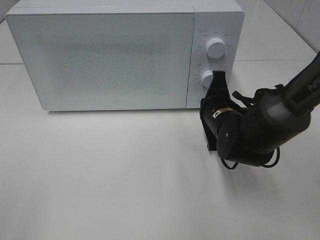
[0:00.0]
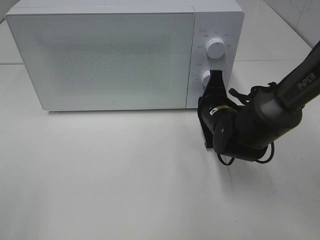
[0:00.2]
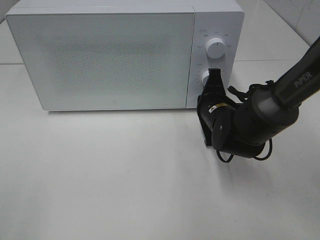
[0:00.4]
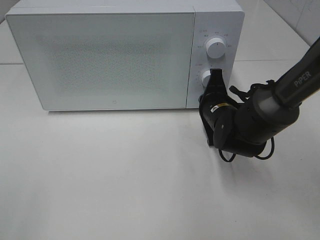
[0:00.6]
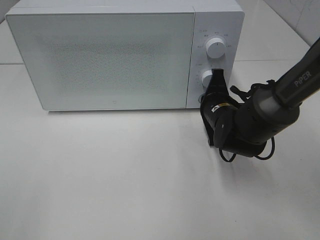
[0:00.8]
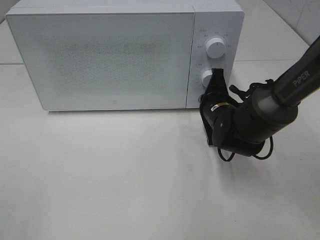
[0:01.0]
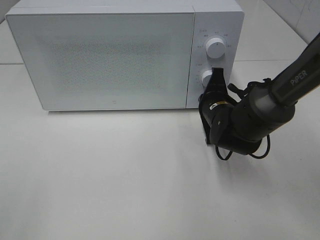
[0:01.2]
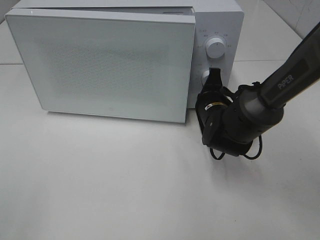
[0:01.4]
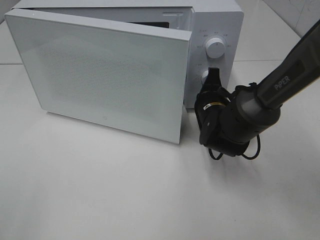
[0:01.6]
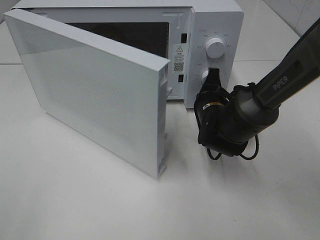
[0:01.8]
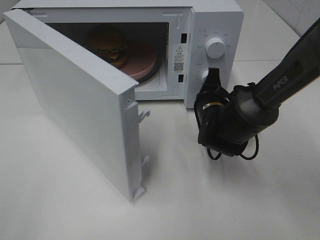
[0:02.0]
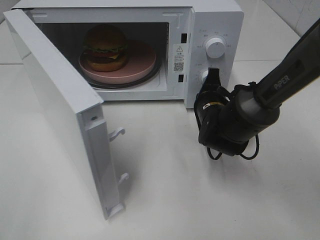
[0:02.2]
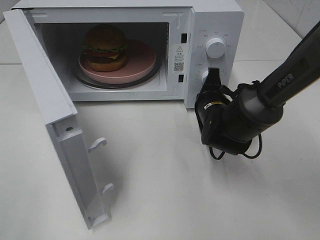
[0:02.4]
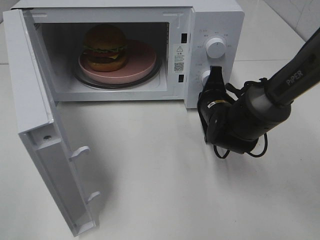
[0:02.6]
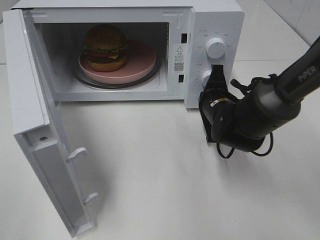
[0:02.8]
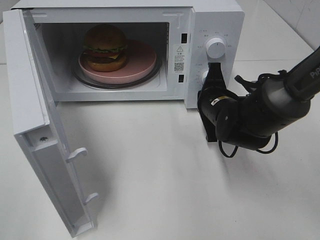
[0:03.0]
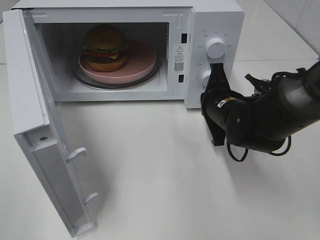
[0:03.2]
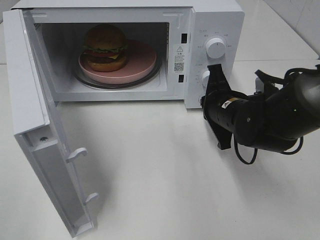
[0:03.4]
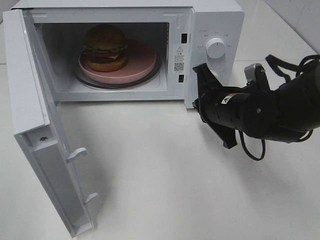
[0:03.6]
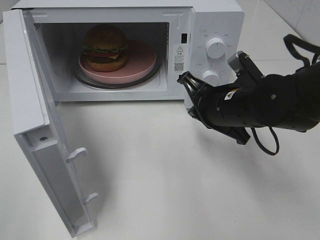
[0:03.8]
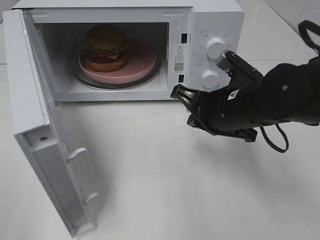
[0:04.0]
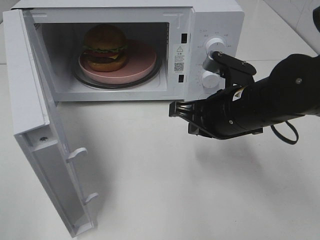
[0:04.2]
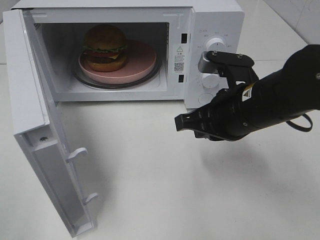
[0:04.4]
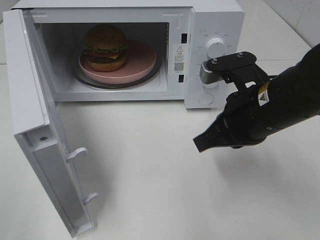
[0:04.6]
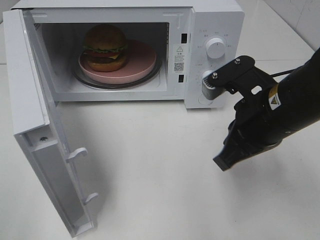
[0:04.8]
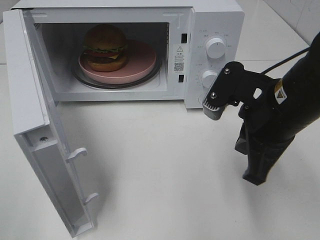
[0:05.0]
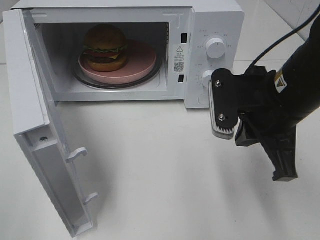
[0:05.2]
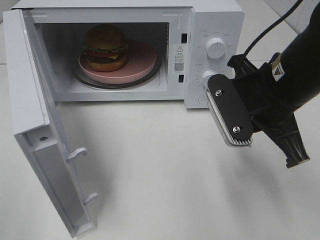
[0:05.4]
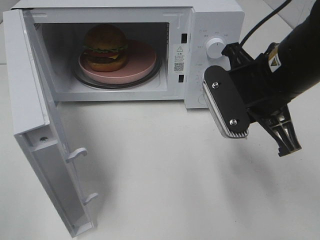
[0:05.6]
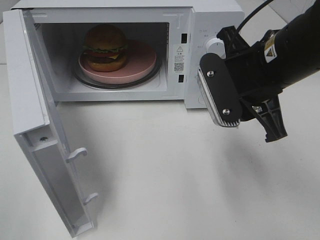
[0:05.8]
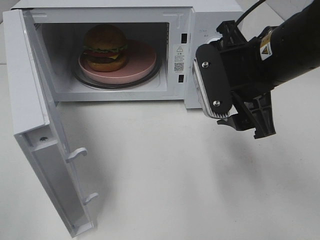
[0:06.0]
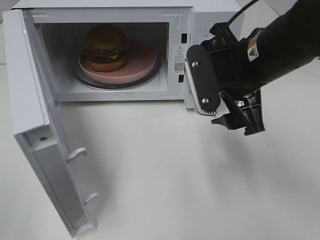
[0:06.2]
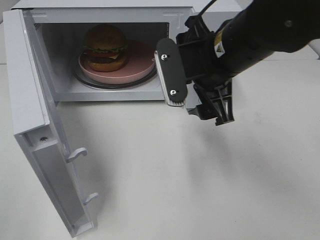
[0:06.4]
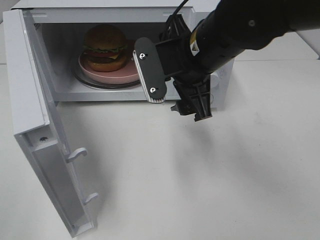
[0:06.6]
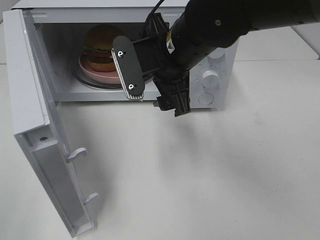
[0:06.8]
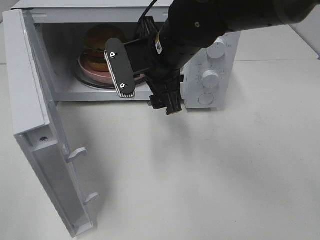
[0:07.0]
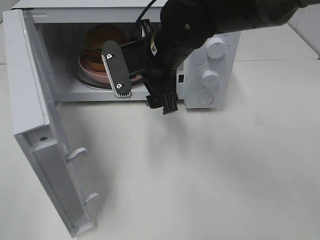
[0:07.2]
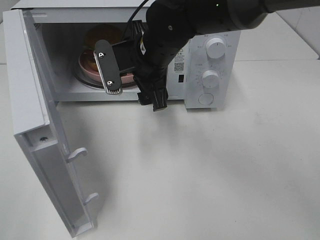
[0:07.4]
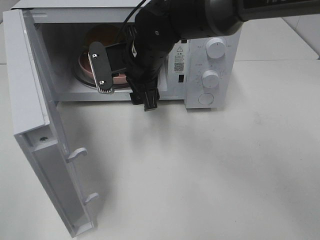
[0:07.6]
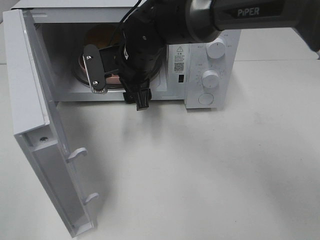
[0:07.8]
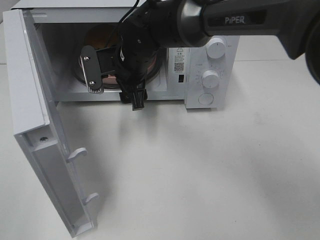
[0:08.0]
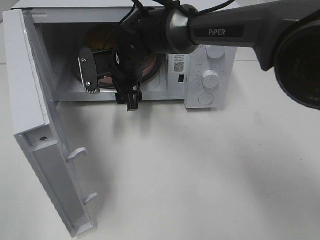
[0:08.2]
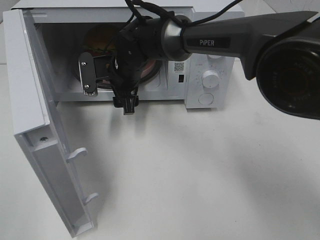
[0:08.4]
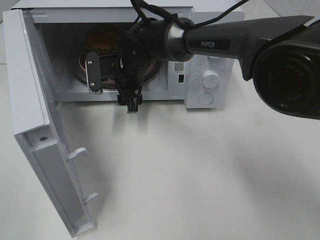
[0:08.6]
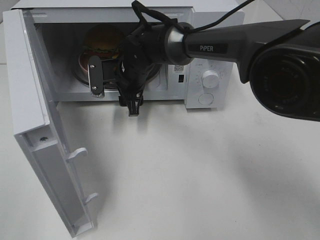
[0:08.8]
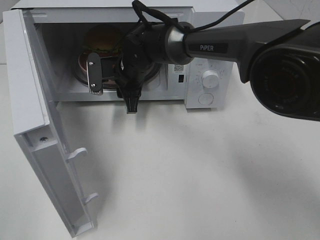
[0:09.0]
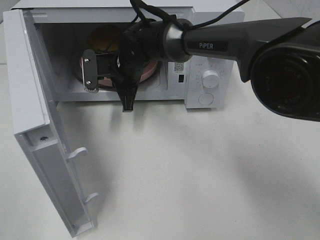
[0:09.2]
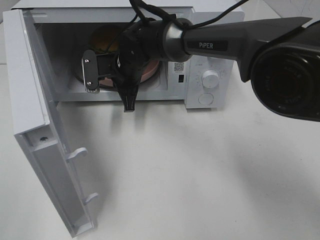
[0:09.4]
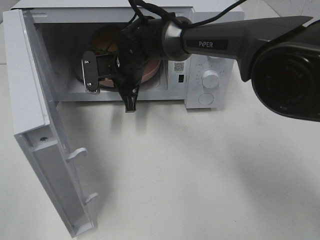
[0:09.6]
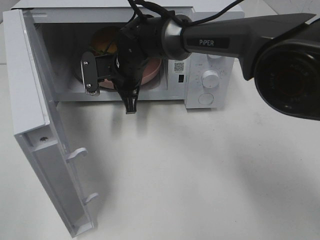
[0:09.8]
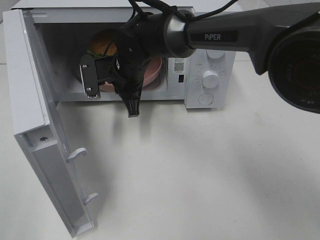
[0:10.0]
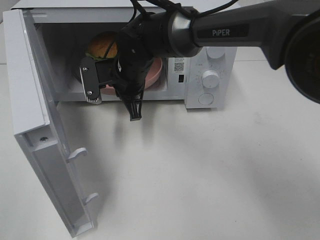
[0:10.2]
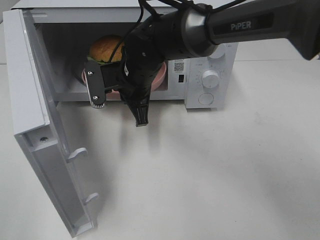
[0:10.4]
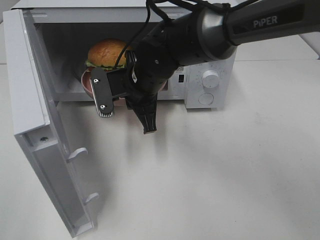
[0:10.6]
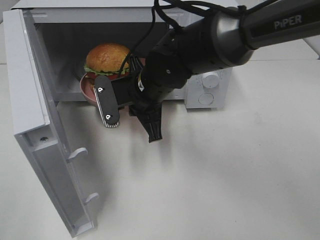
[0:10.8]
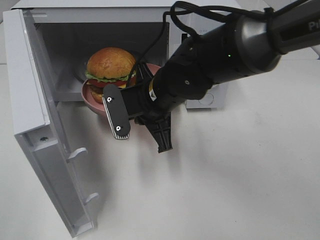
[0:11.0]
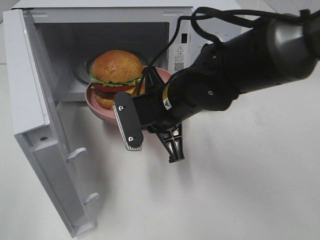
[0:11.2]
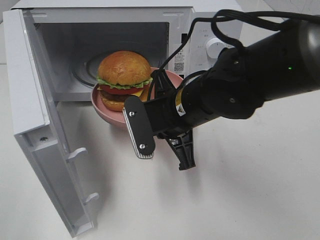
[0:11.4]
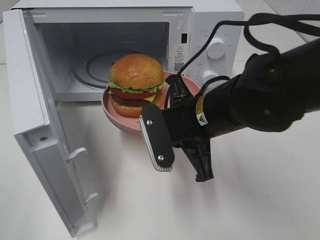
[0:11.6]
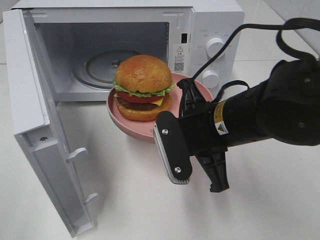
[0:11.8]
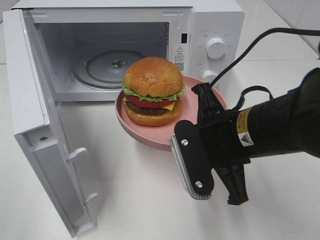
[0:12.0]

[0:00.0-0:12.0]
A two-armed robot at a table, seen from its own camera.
Task of the whole recording: Heat the burger.
Step, 0:00.0 to 0:03.0: Right hand: press the switch.
Step, 0:03.2 to 0:09.4: Right hand: grab the plate with the hamburger.
0:00.0 to 0:01.6: There are only small adjustments of the grippers.
0:03.0 to 0:04.4: The right gripper heads backward and upward, covering about 15 cm.
0:04.4 to 0:06.0: The right gripper travels upward by roughly 5 cm, and opens its fingers.
0:06.0 to 0:07.6: The right gripper travels to the left and forward by roughly 20 cm.
0:07.6 to 0:09.0: The right gripper heads downward and forward, covering some 10 cm, and closes.
0:09.0 to 0:10.4: The right gripper heads backward, covering about 5 cm, and closes its fingers.
0:10.4 to 0:12.0: The right gripper moves backward and to the right, some 20 cm.

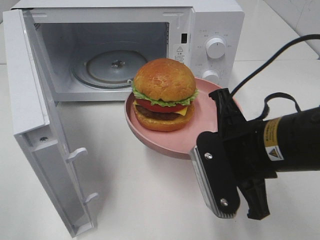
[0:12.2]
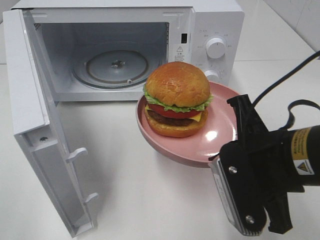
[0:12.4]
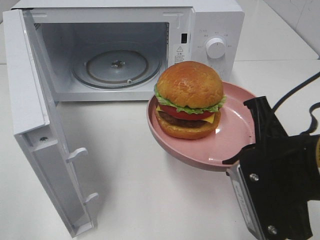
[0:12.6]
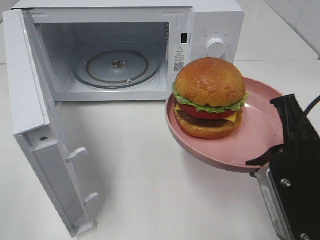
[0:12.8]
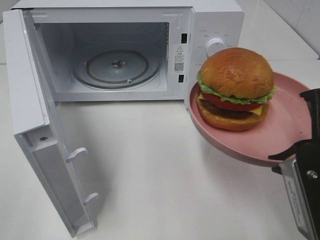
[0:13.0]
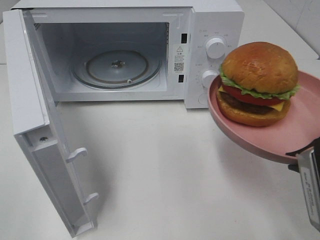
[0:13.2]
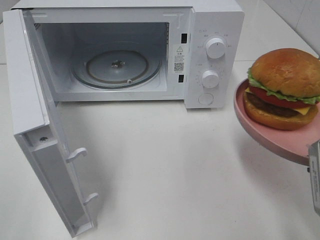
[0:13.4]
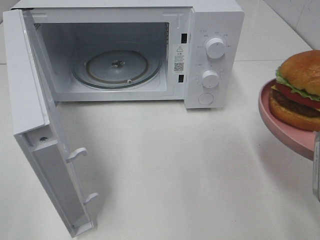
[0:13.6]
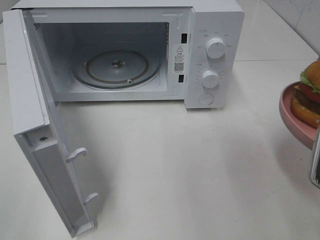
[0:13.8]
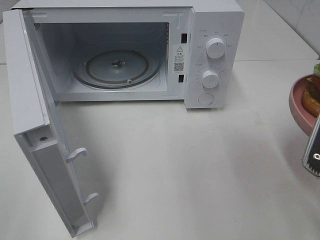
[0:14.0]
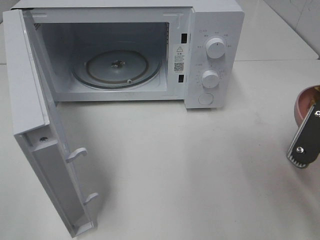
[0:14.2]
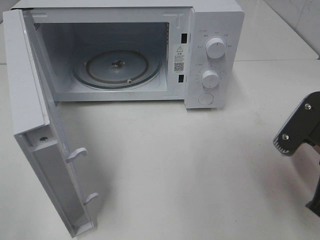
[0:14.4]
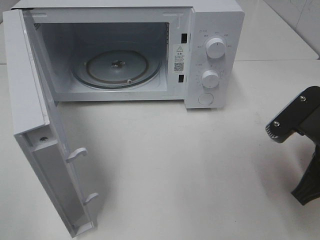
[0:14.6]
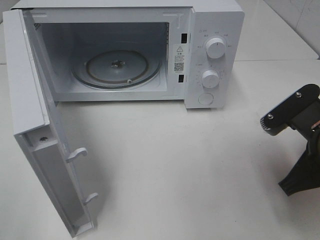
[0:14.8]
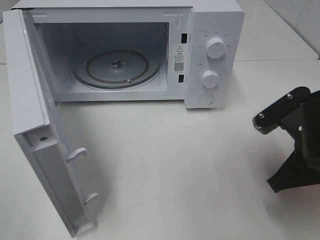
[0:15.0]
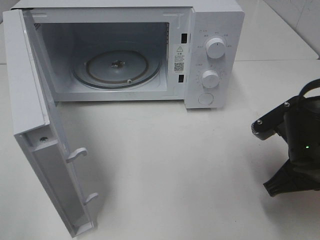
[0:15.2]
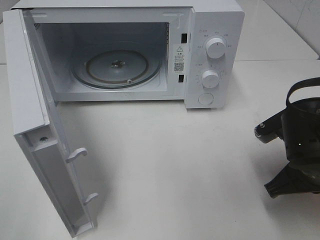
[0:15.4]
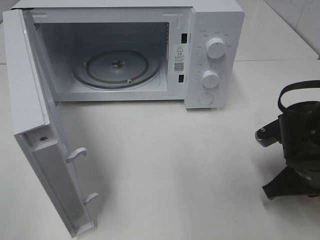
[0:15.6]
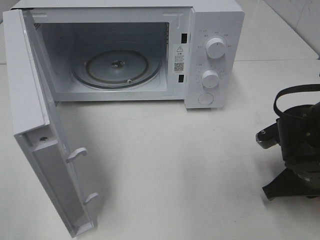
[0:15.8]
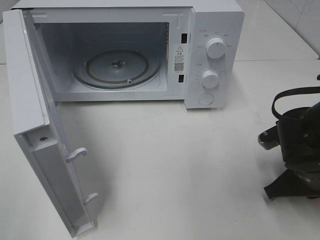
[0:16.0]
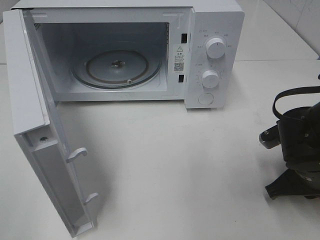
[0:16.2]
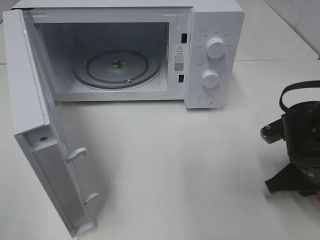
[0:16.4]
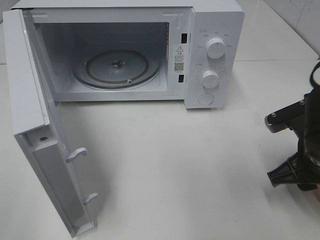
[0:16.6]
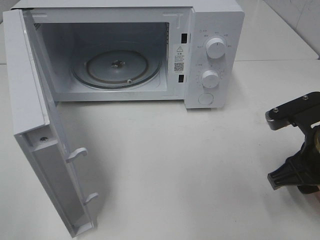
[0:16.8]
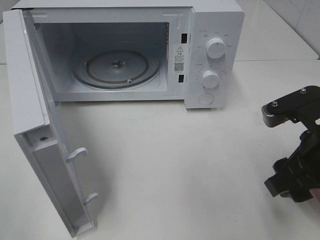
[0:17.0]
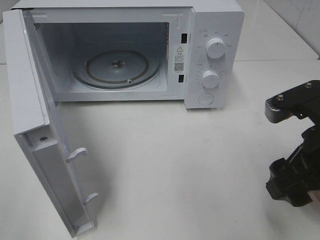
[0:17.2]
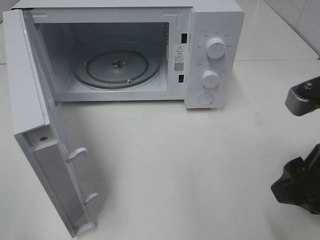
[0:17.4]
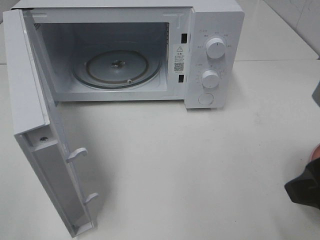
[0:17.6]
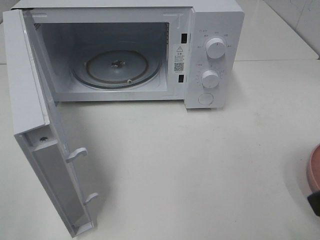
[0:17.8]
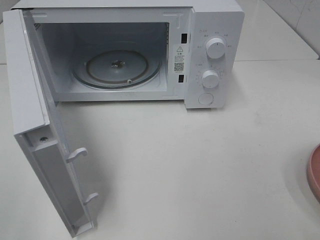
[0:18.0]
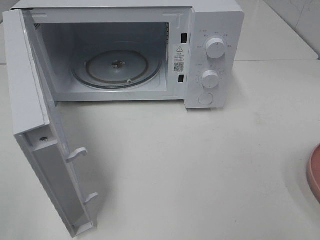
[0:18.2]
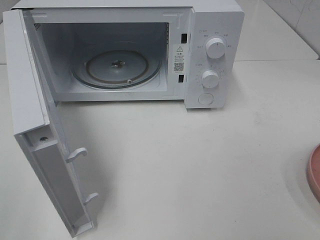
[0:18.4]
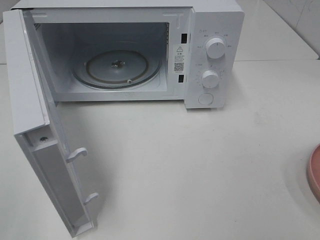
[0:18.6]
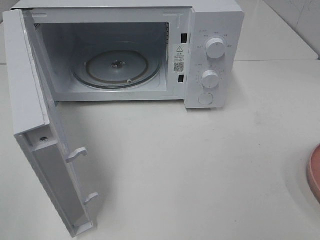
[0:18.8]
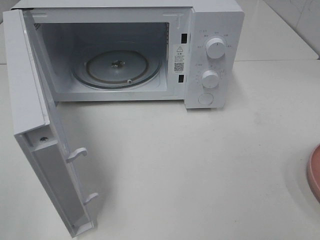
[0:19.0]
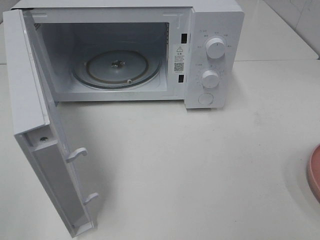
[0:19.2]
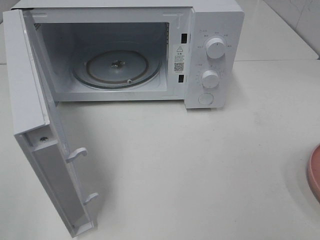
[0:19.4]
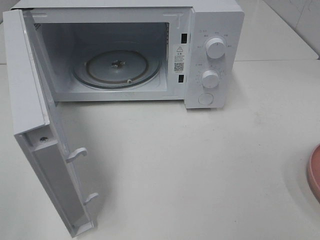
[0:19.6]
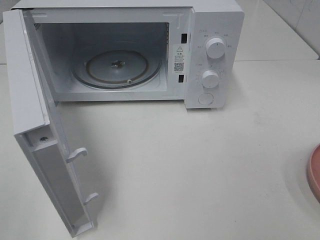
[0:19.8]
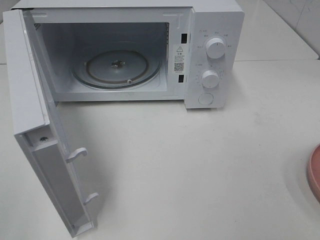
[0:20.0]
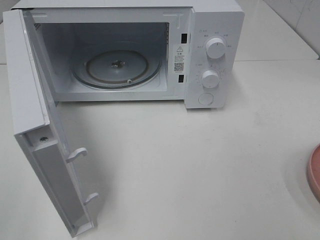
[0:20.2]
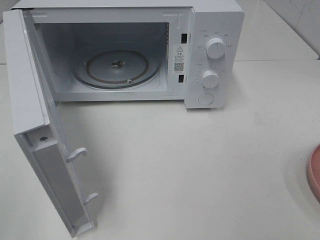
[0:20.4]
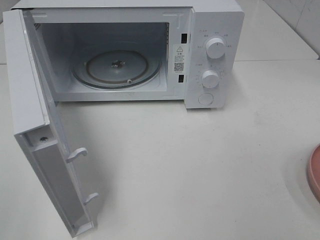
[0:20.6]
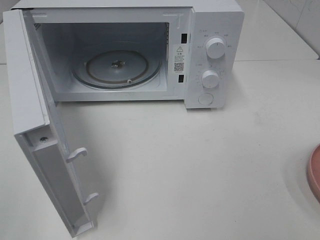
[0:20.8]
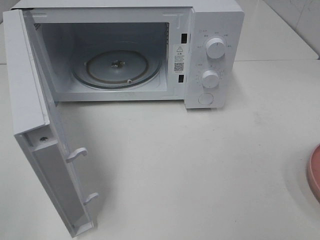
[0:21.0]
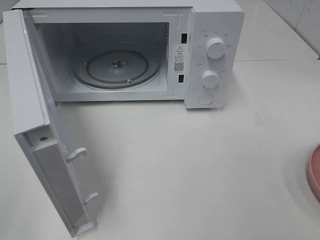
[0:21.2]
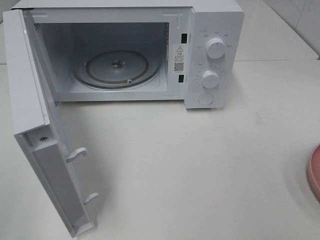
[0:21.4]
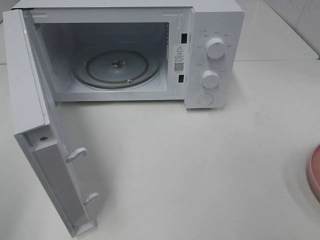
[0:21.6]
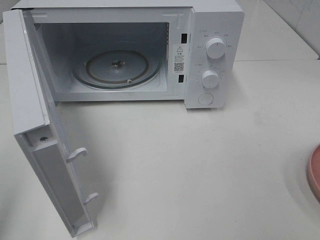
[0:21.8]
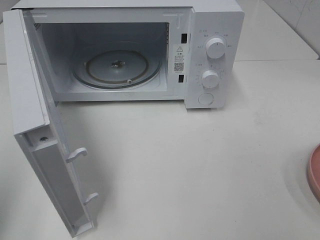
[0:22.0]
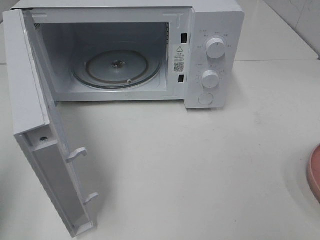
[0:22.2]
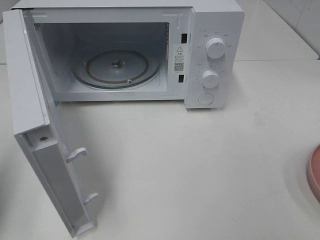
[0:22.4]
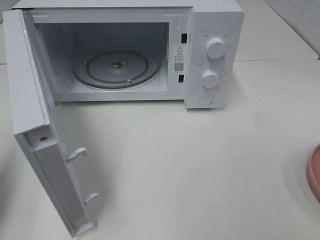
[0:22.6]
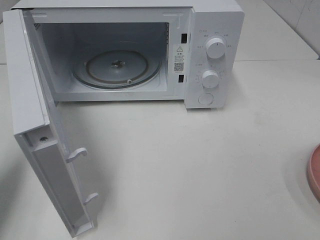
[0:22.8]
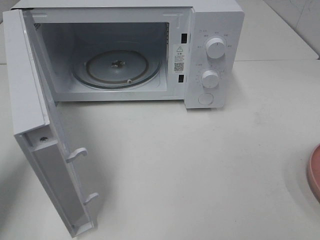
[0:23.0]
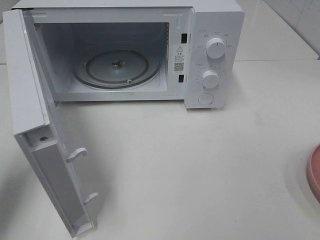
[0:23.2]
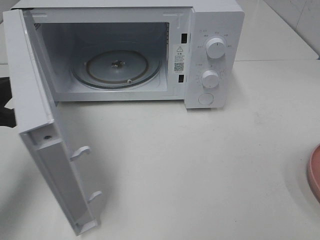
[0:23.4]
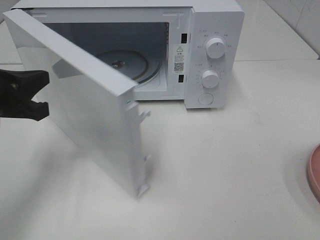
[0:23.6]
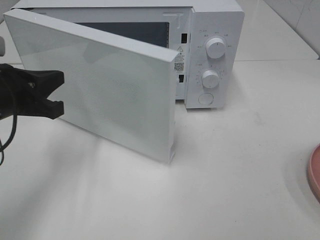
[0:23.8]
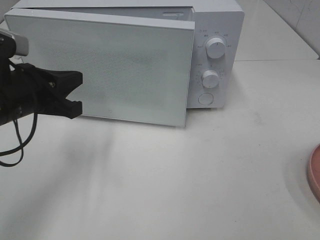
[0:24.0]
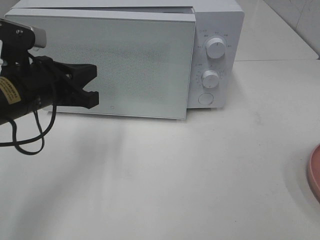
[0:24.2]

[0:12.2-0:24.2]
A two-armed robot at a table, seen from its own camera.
Task of the whole recording: Heat the burger.
Step, 0:12.2 to 0:16.4: Right hand: place the plate on the table.
0:12.2 to 0:13.8: The right gripper shifts approximately 10 cm to the right and backward.
0:13.8 to 0:15.2: The right gripper goes some 10 cm downward and forward.
0:15.2 to 0:16.6: The right gripper opens its fingers.
0:16.6 to 0:18.2: The right gripper heads backward and upward, covering about 20 cm.
0:19.8 to 0:21.2: Neither gripper changes place.
0:21.2 to 0:22.6: The left gripper travels forward by roughly 15 cm, and closes up.
0:22.6 to 0:24.2: The left gripper moves to the right and forward, roughly 20 cm.
